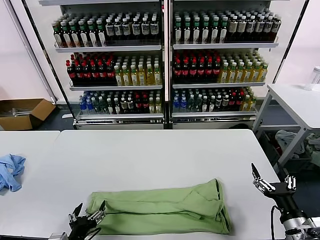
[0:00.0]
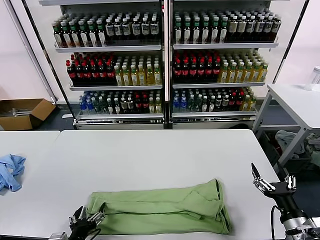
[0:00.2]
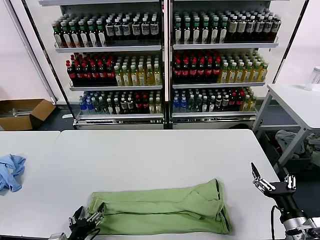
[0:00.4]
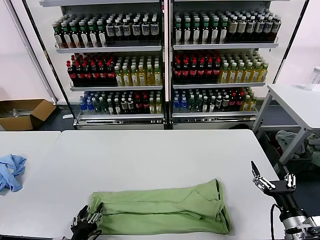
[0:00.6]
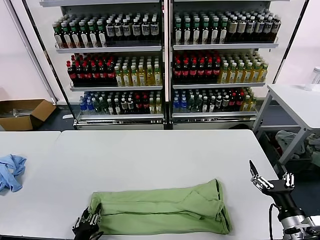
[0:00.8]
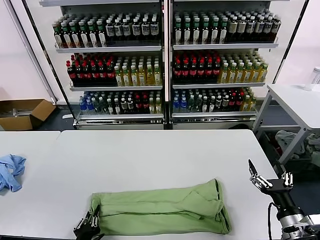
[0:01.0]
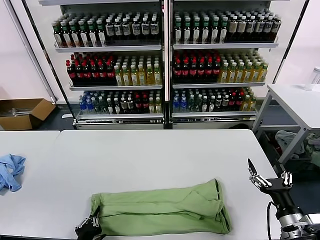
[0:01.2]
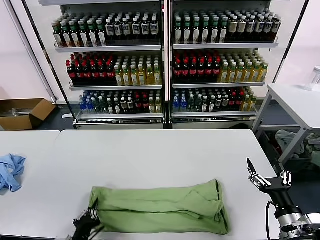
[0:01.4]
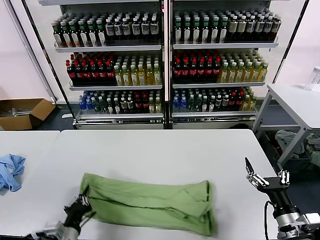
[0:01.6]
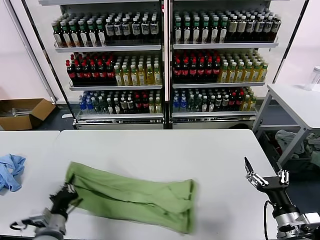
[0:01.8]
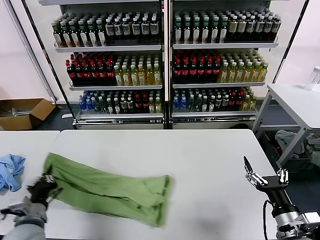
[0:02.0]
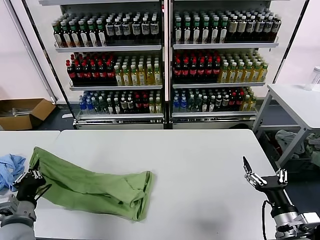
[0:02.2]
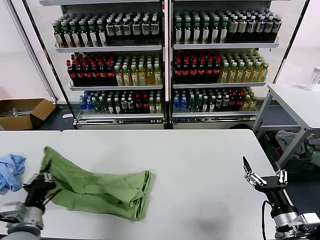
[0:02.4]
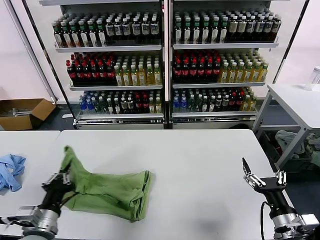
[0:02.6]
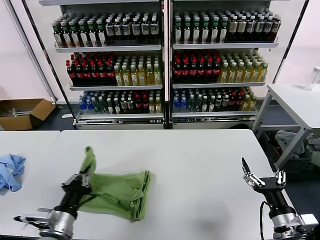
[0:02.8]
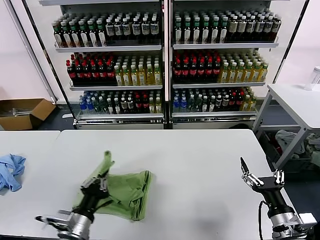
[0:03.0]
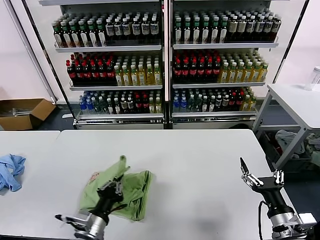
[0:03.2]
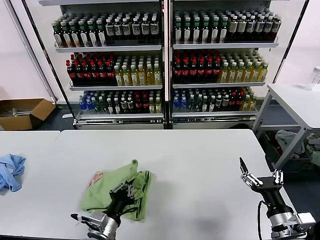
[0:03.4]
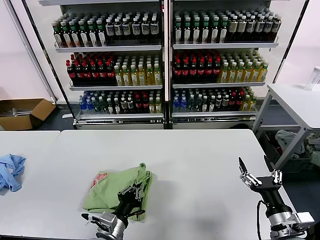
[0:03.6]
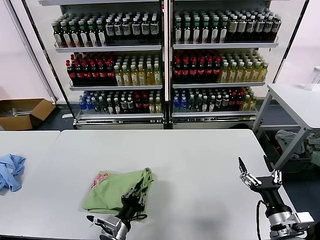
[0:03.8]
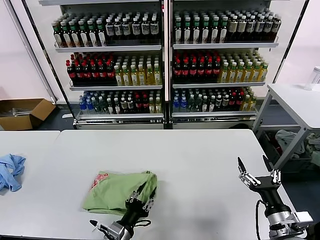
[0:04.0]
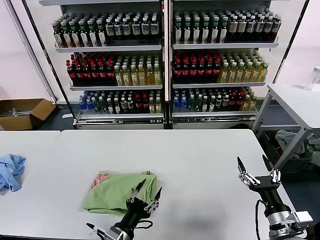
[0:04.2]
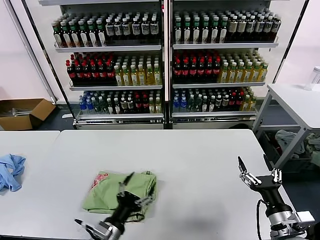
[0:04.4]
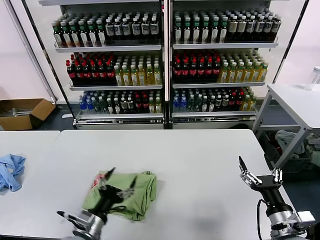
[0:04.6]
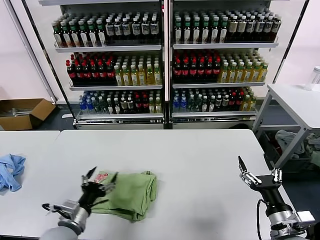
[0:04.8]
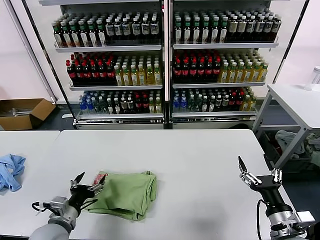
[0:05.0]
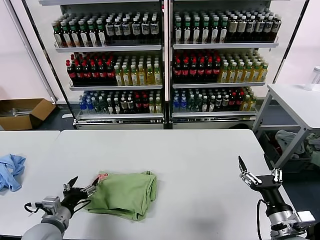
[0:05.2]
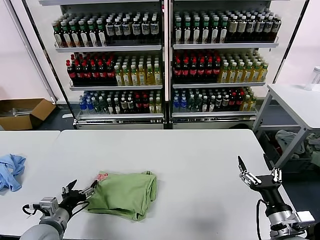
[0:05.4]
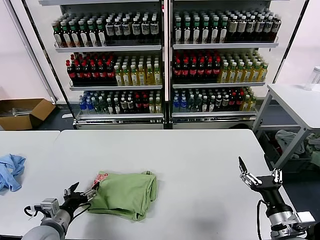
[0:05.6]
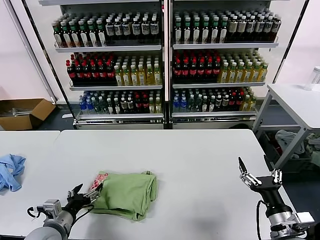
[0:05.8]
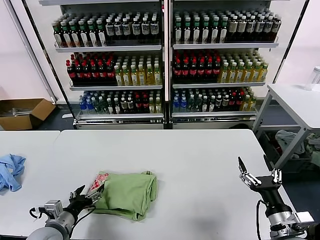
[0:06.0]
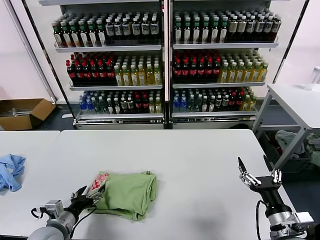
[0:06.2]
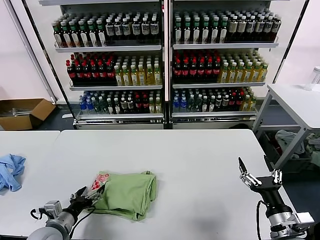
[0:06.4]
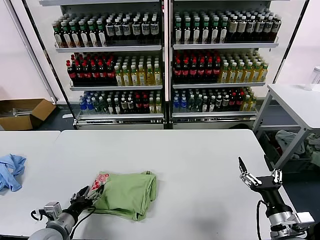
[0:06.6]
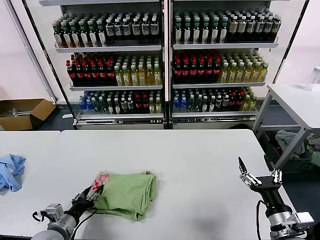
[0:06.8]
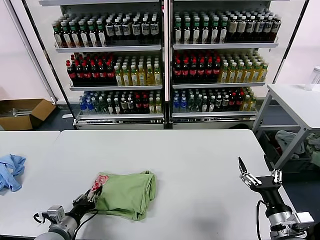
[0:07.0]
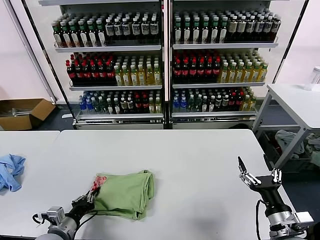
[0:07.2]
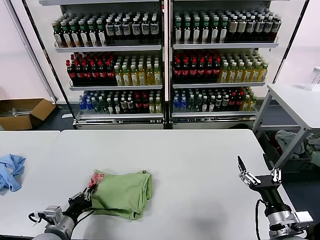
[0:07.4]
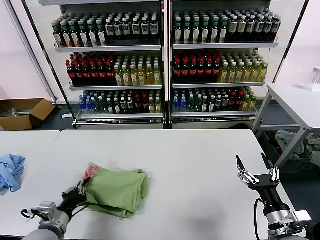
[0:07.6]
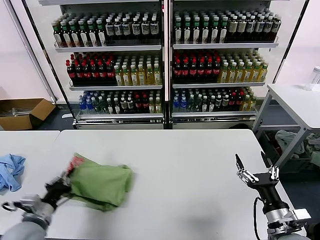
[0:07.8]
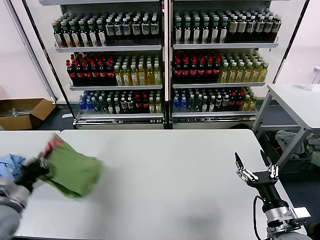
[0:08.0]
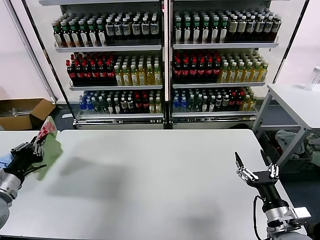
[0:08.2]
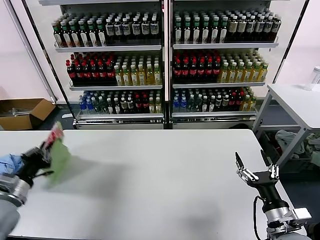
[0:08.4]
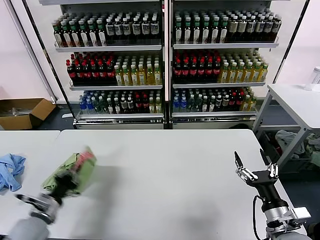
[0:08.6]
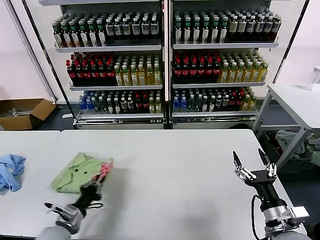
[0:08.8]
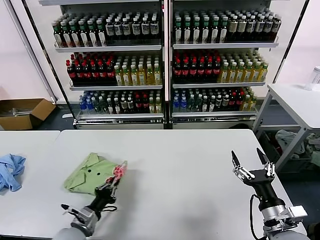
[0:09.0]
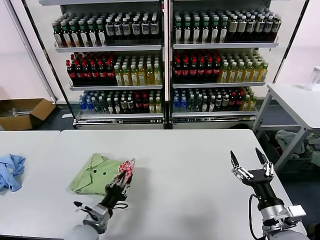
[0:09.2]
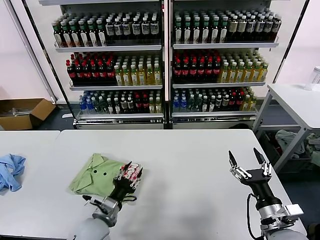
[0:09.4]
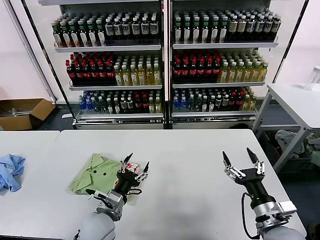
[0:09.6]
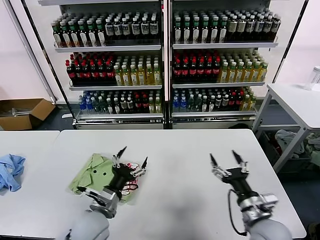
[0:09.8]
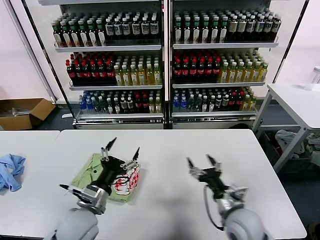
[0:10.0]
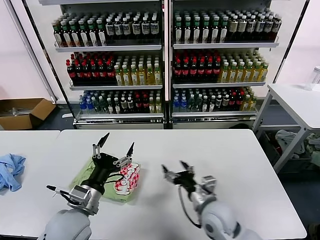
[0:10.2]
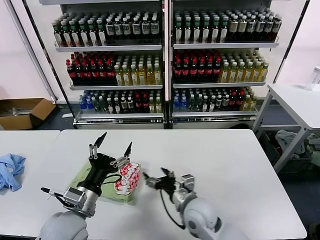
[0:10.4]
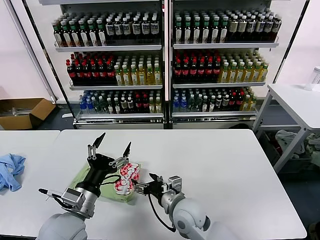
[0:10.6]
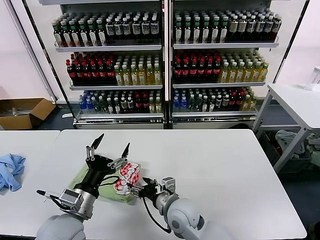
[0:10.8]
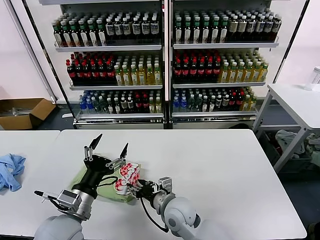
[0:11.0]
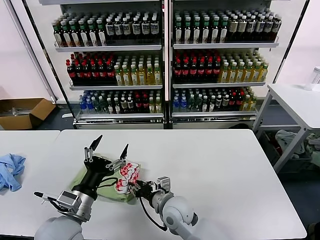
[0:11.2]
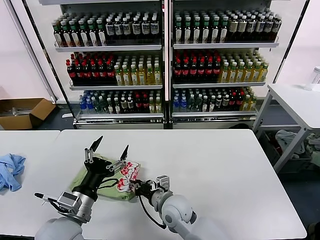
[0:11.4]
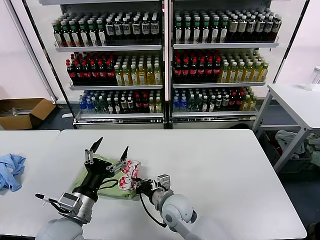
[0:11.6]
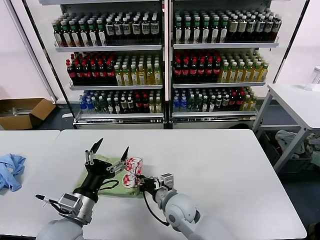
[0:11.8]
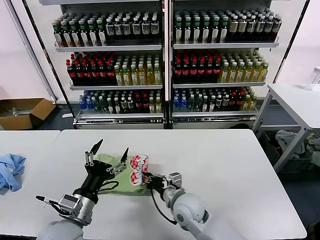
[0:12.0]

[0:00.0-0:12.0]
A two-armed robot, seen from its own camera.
Task of the whole recording: fold and organize the clothes.
Step, 0:01.4 to 0:04.0: use the left gripper to drag the left edge of the fabric to the left and folds it over the right edge.
Step, 0:04.2 to 0:09.2: Flip the folded clothes over with left gripper.
0:00.0 to 0:01.6: The left gripper closes.
0:01.6 to 0:03.0: The left gripper travels upward by about 5 cm, and goes to the left and returns, roughly 10 cm each way.
0:03.0 to 0:04.4: The left gripper travels to the right by some 5 cm, and opens.
0:04.4 to 0:06.0: The left gripper heads to the left, covering roughly 15 cm.
0:06.0 to 0:07.6: The left gripper closes.
0:07.6 to 0:09.0: The left gripper travels upward and back again, roughly 15 cm each way.
0:09.0 to 0:10.4: The right gripper moves to the left and forward, about 20 cm. The left gripper shifts about 15 cm upward and to the right, and opens.
0:10.4 to 0:12.0: The right gripper ends up about 5 cm from where it was, and closes up.

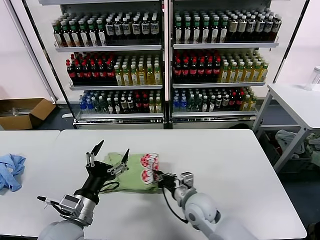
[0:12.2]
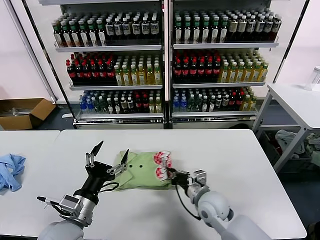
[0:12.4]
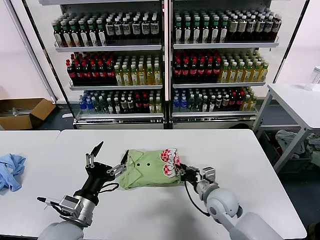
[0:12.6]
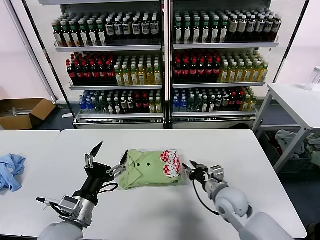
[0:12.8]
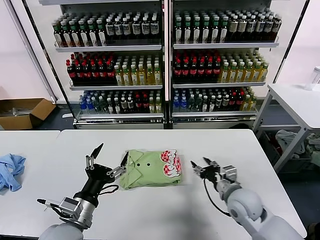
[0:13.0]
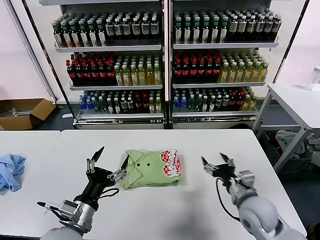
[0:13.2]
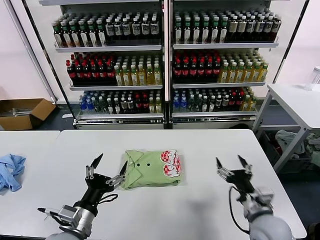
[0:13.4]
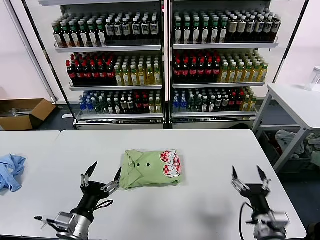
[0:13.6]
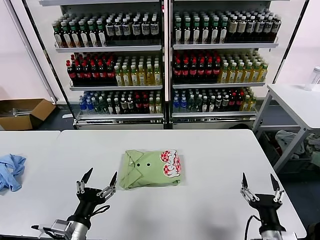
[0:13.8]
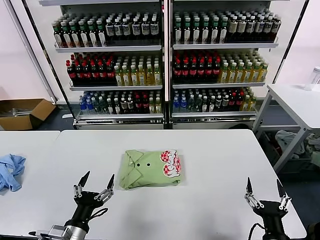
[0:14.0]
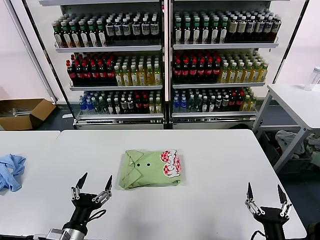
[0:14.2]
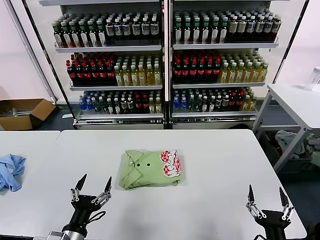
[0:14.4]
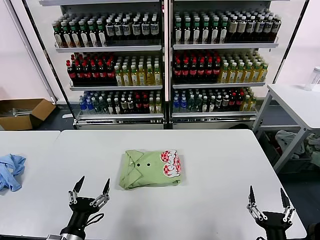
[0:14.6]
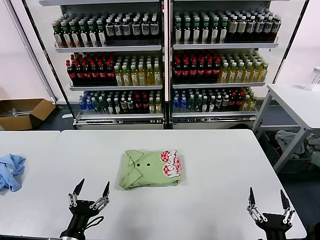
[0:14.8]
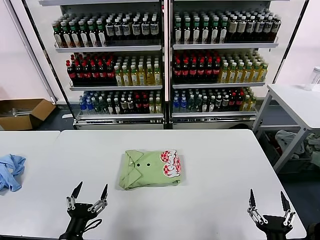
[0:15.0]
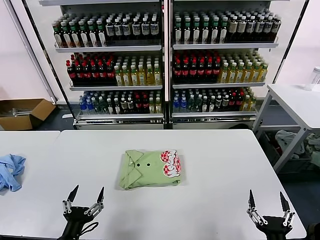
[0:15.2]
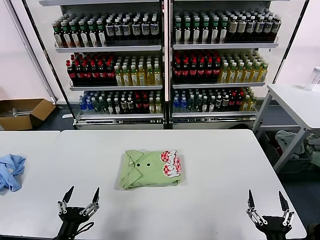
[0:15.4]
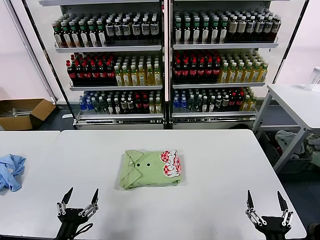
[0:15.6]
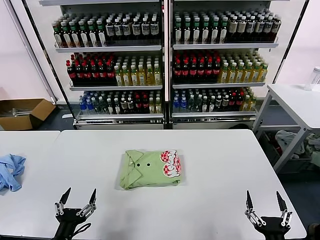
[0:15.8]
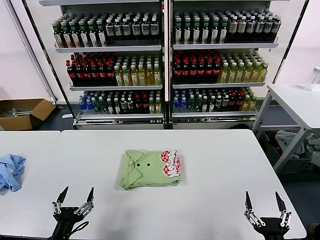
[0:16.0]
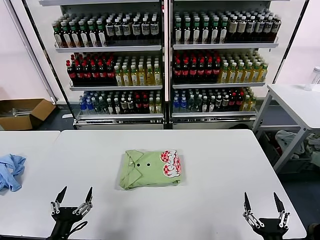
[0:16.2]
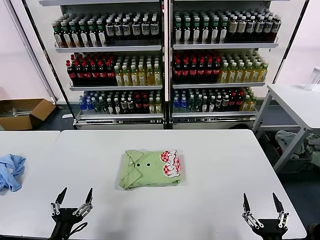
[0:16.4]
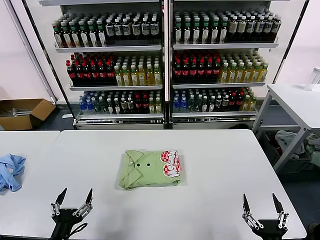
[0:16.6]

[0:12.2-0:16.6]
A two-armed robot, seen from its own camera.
Task of the whole recording: fold and organize the clothes.
0:12.2 to 0:13.6: The right gripper shifts about 20 cm to the right and backward, and opens, while the left gripper moves about 5 cm.
0:13.6 to 0:15.2: The left gripper heads backward and downward, covering some 10 cm, while the right gripper heads backward, covering approximately 10 cm.
0:15.2 to 0:16.6: The grippers move only a little.
